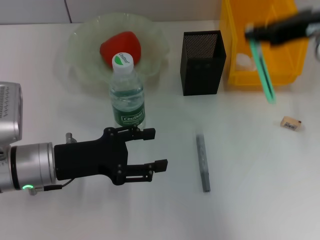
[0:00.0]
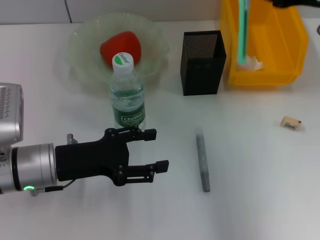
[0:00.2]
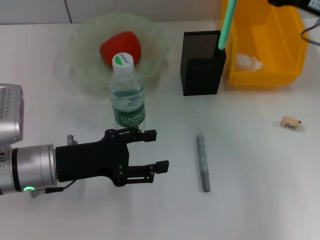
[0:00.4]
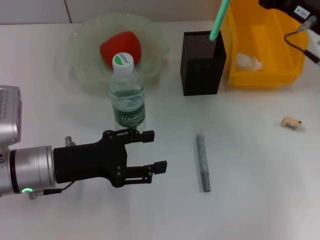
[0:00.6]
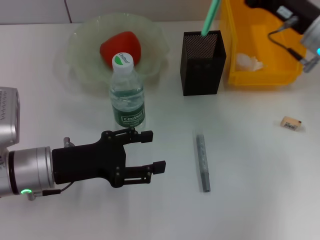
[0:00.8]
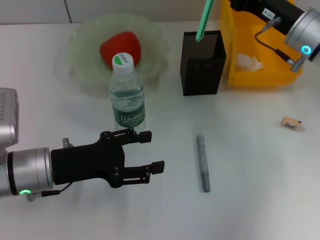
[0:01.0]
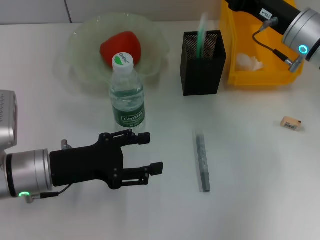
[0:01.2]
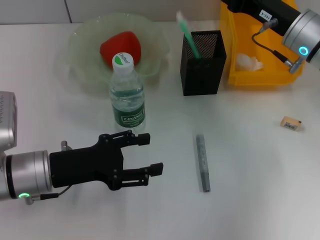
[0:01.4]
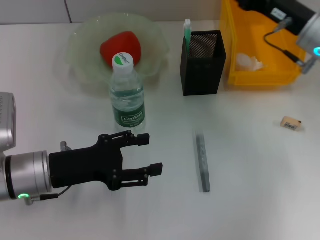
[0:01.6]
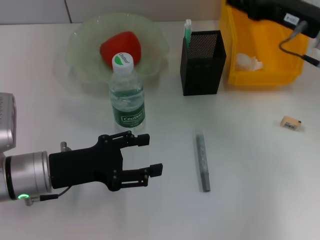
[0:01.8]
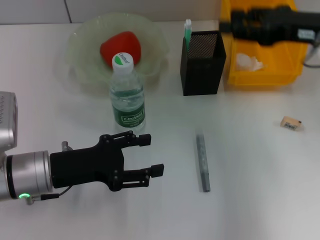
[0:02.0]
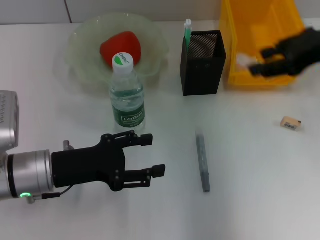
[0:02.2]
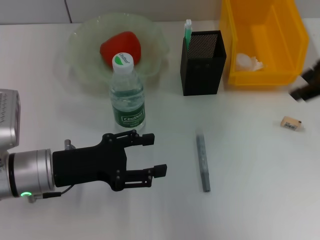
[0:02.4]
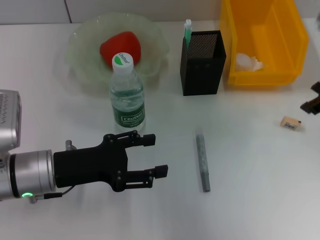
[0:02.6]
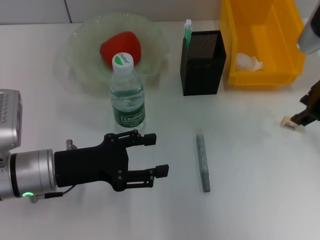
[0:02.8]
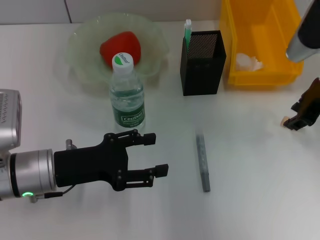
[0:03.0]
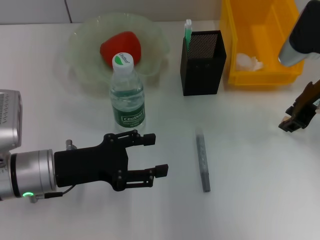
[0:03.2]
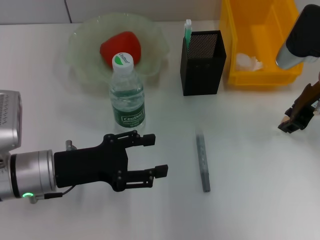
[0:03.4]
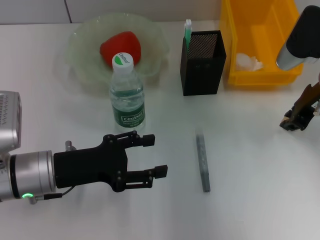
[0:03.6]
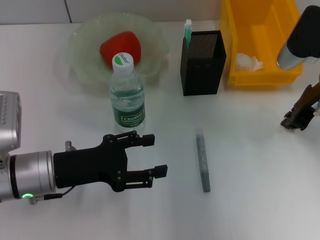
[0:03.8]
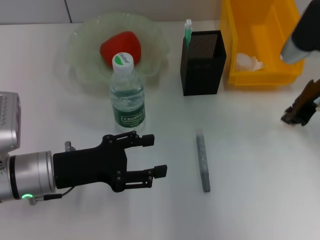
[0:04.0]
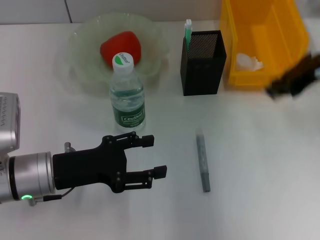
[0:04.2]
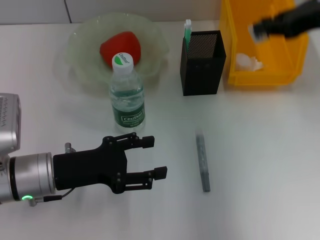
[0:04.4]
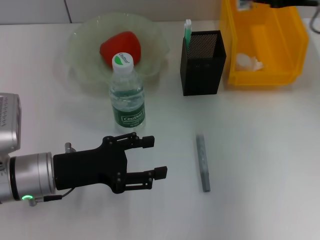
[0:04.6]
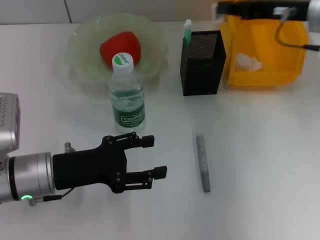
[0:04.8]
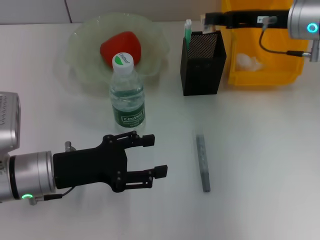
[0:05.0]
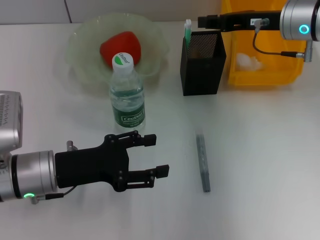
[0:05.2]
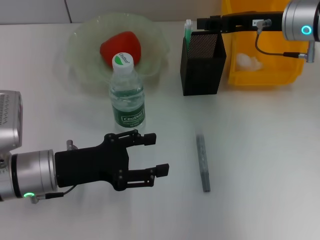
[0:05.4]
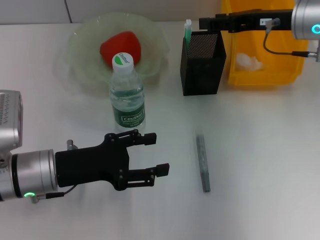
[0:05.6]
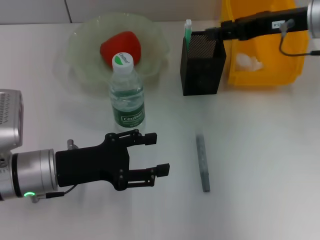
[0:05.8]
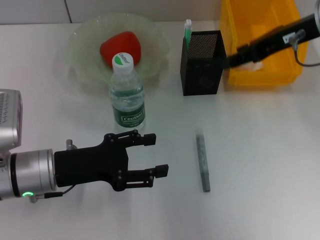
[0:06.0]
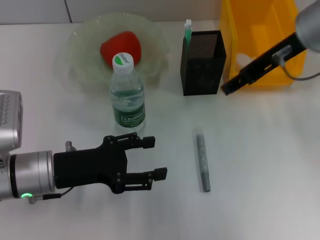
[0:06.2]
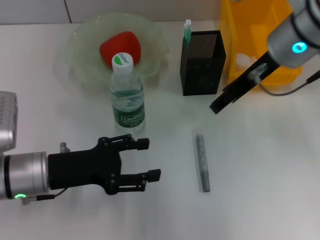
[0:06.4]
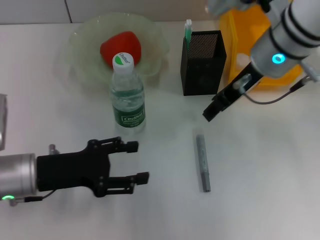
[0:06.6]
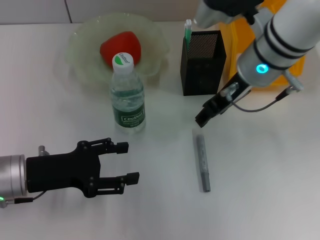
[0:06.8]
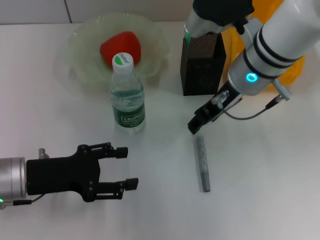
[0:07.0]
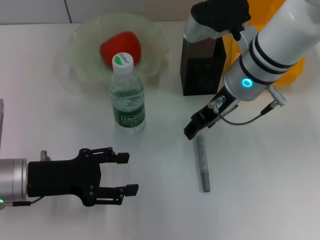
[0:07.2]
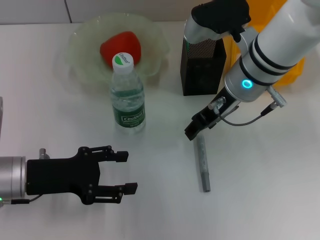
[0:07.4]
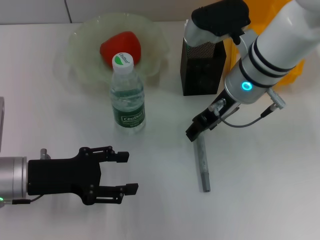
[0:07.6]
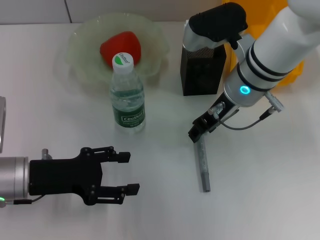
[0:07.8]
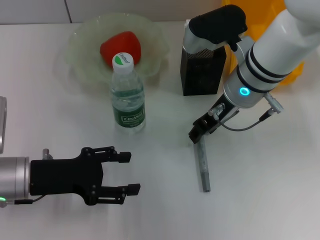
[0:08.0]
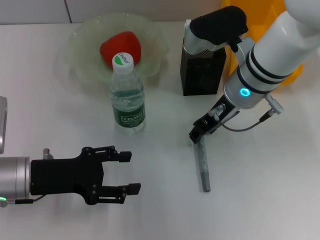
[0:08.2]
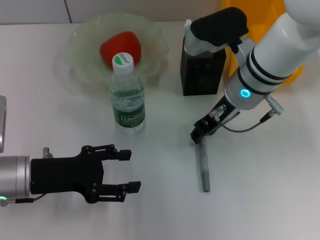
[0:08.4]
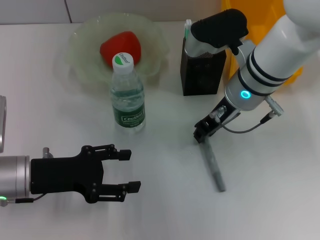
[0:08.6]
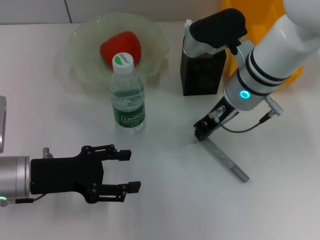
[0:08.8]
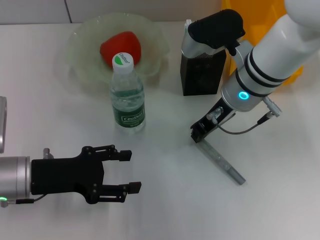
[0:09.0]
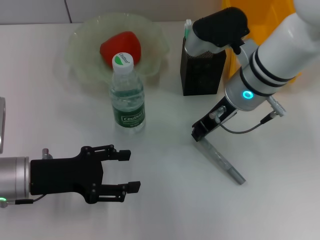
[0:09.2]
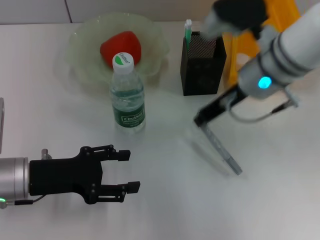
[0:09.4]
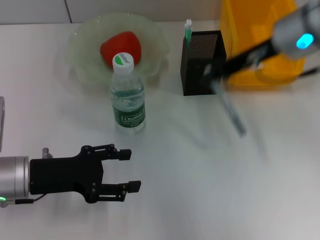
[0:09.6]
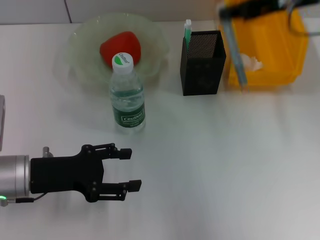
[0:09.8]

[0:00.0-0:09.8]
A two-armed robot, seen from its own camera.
Step, 0:00.0 to 0:01.4: Place the blue utility knife into the pen holder with the right hand.
Step, 0:01.6 to 0:03.6: Grab the eraser with the right hand.
Step, 0:03.8 to 0:05.8: Put the eraser into the pen holder with the right hand.
Step, 0:06.0 to 0:08.6: Grab the gray glue with the right hand.
0:00.0 to 0:01.4: The right gripper moves downward and forward, some 15 cm.
0:01.4 to 0:02.8: The right gripper heads upward, covering some 5 cm.
0:02.8 to 0:04.2: The right gripper closes its fingers.
0:04.2 to 0:05.6: The right gripper goes about 5 cm forward, and opens.
0:05.6 to 0:07.0: The right gripper travels to the left by some 10 cm.
0:07.0 to 0:08.4: There are only small adjustments of the grippers.
0:08.4 to 0:09.8: The right gripper moves upward and to the right, about 15 cm, and closes its fingers.

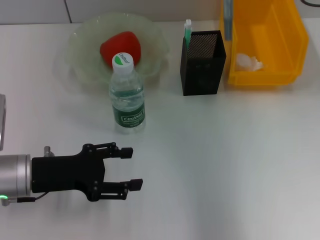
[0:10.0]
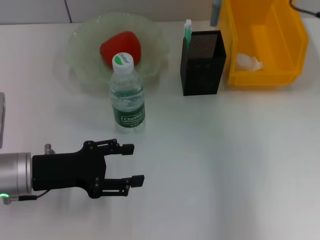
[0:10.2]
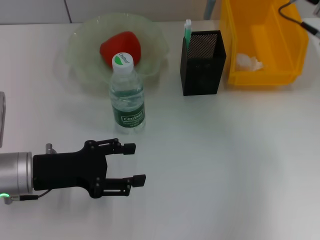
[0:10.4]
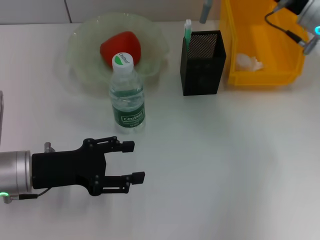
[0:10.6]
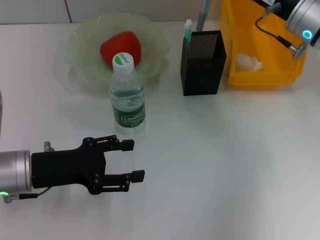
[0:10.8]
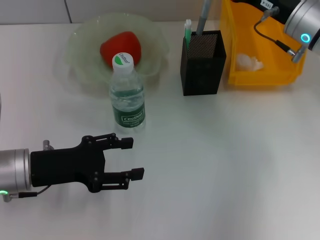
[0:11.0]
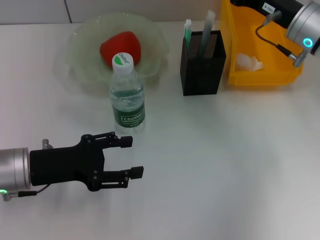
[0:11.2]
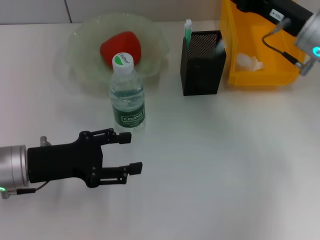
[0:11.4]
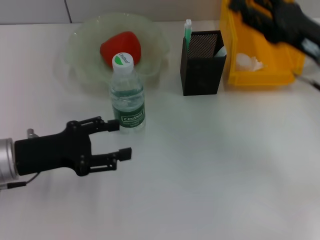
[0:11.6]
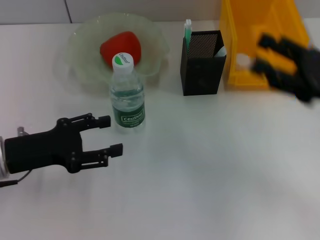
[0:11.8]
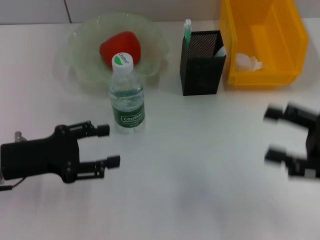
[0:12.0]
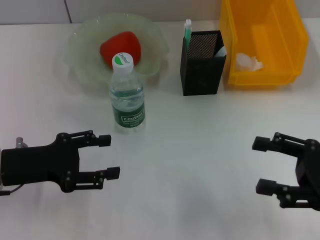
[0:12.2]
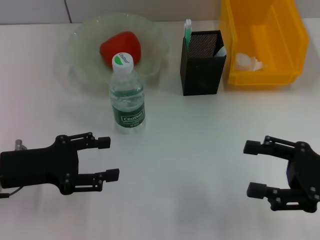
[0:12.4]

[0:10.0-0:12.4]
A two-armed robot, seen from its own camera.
Step, 0:10.0 to 0:11.4: Place the gray glue into the pen holder with the right hand.
0:10.0 to 0:11.2: The right gripper moves downward, approximately 15 cm.
0:11.2 to 0:12.4: The right gripper is displaced backward and to the right by some 20 cm, and opens its fingers.

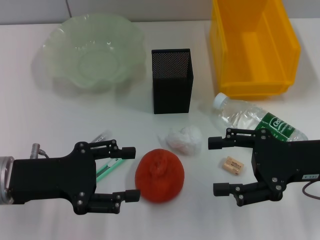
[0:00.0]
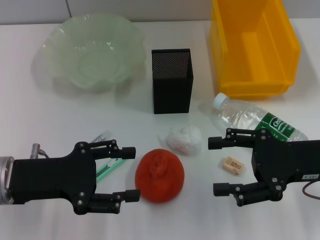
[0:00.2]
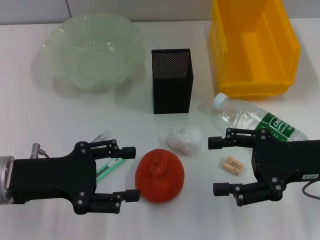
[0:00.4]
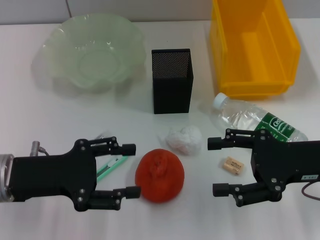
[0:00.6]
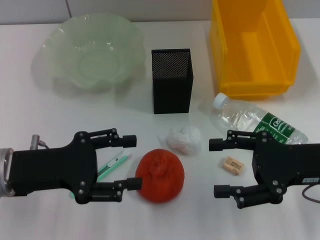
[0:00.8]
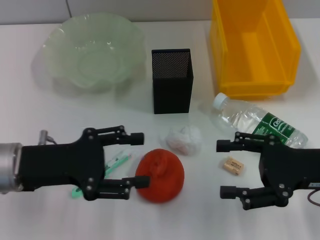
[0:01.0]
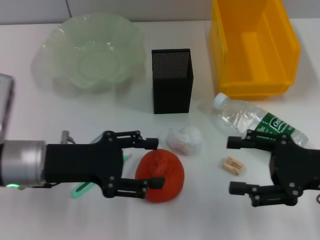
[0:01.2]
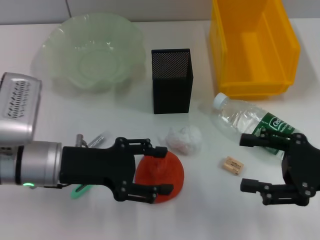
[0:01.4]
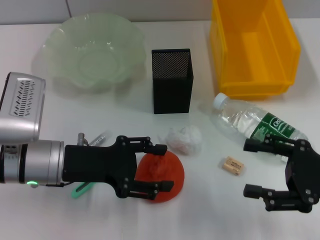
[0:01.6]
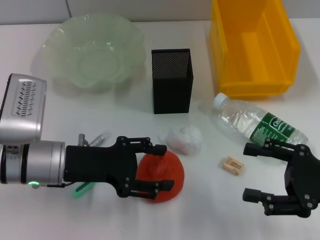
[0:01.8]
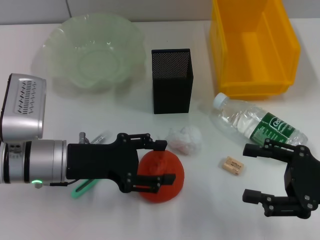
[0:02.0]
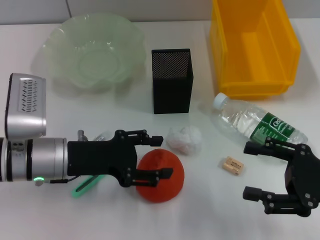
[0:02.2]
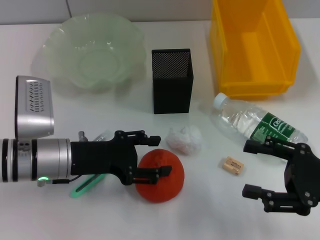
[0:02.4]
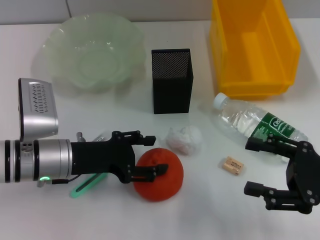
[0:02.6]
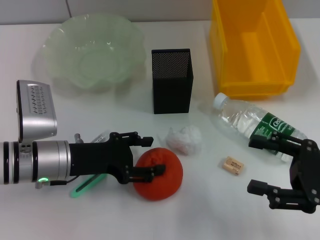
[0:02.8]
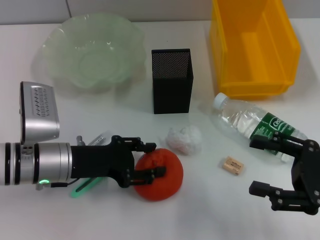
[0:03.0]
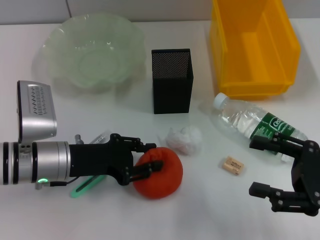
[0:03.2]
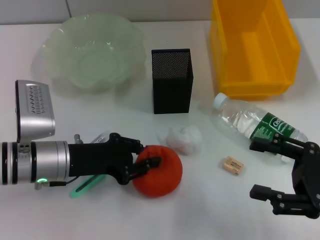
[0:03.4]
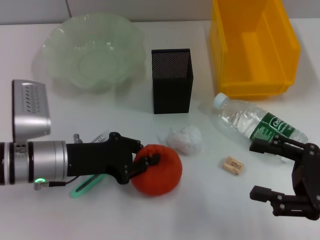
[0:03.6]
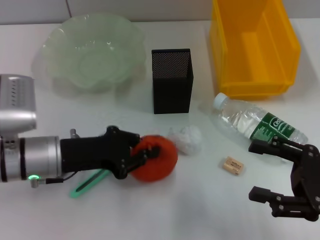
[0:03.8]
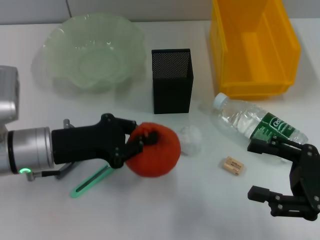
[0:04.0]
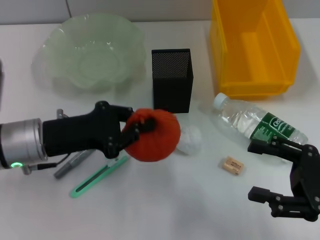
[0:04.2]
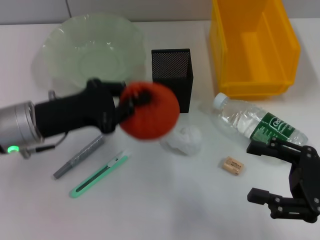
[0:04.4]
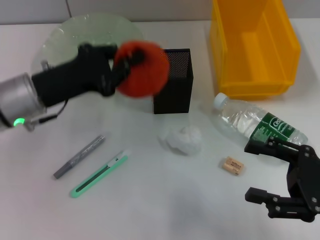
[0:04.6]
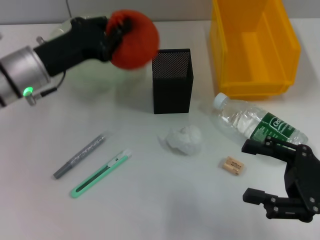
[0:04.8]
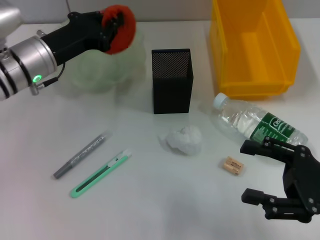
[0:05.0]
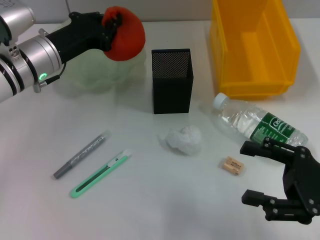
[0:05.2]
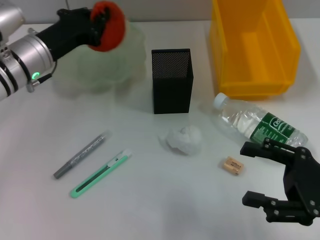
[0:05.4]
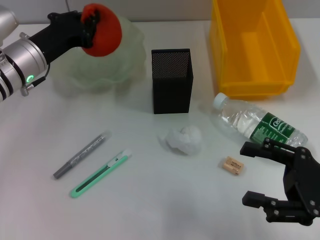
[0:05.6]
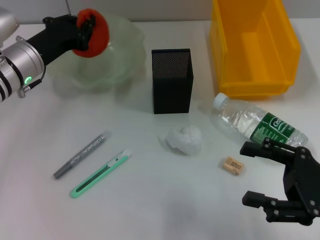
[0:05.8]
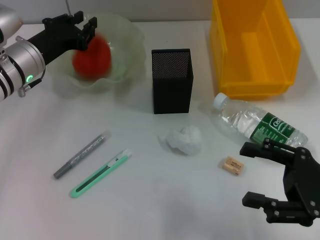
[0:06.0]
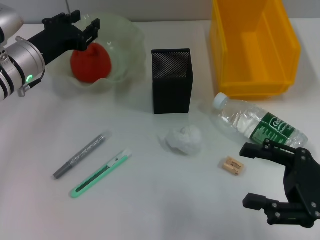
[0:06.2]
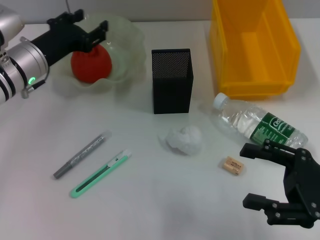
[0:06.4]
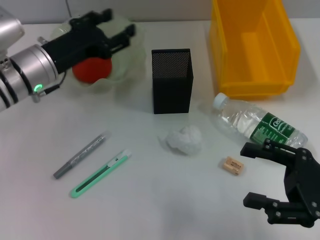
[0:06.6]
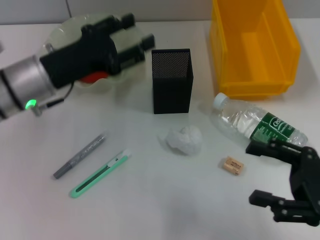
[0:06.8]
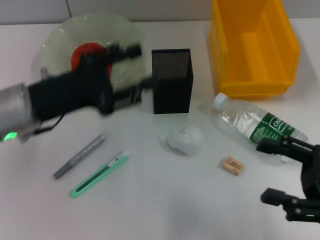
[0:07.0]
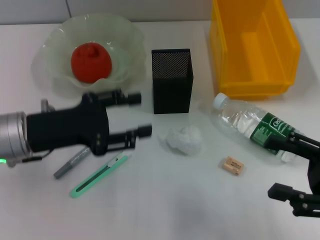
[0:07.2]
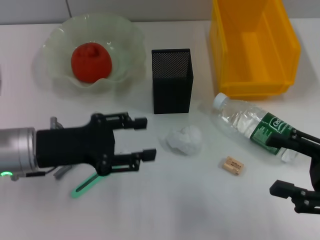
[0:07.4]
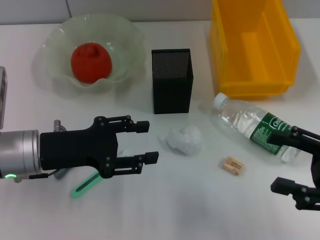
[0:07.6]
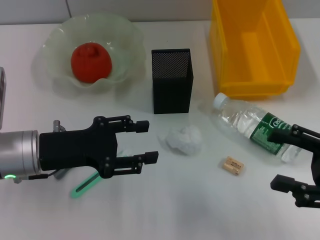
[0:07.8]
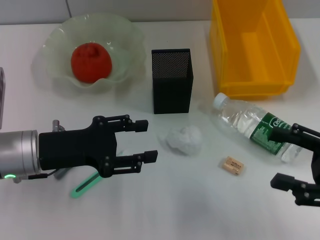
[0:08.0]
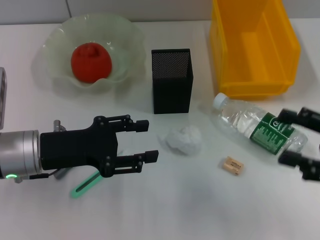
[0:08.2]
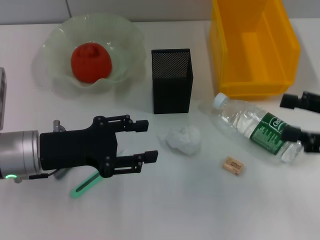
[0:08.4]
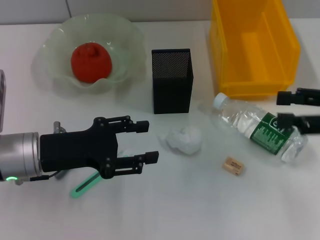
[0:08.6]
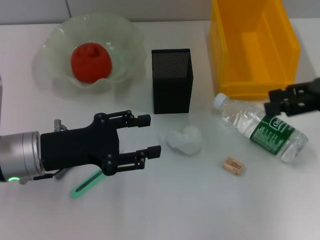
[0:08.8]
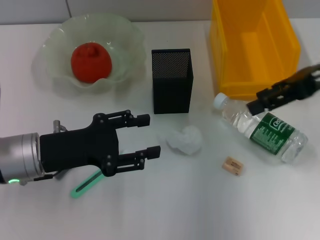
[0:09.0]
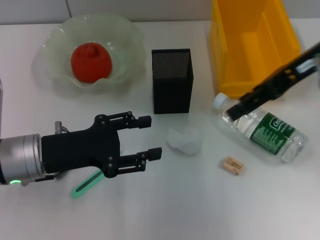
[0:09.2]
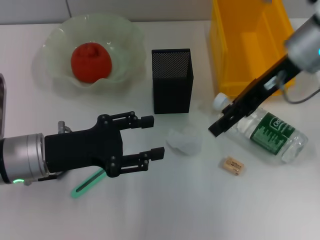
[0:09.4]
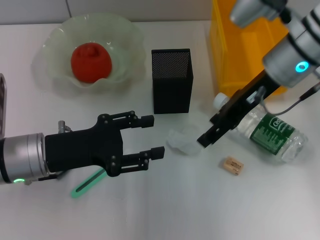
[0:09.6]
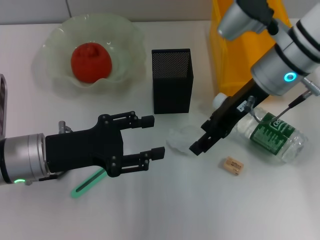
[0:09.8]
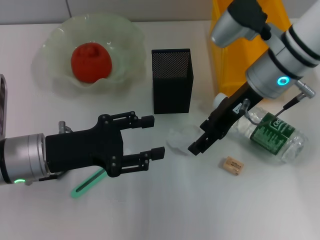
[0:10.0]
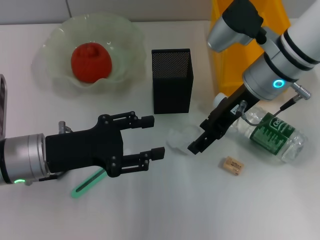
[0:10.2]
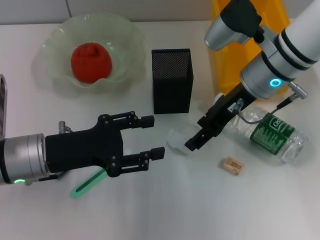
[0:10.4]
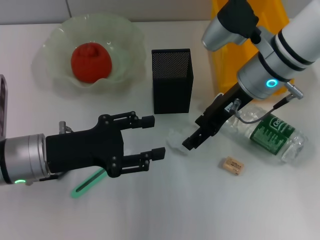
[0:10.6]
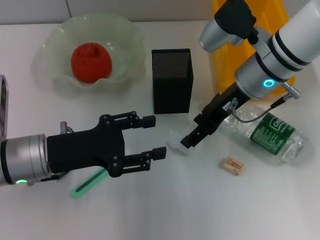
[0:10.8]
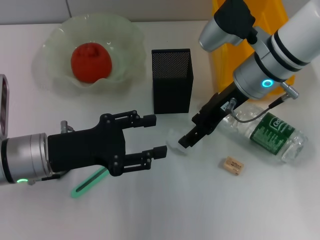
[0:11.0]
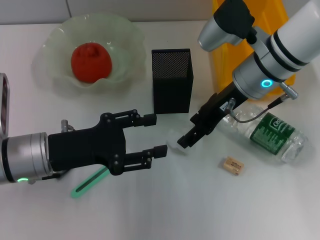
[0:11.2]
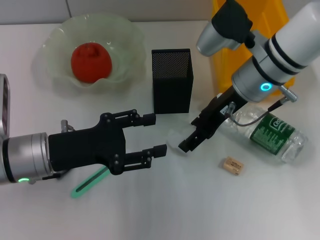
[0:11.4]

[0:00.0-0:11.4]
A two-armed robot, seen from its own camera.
Step, 0:00.0 to 0:03.4: Grab the orange with the left hand.
Step, 0:03.6 to 0:06.0: Place the orange into the fruit bowl with the left hand.
0:00.0 to 0:01.4: The left gripper moves approximately 5 cm.
0:01.4 to 0:02.8: The grippers stay close to where they were, moving slightly.
0:02.8 to 0:04.2: The left gripper closes its fingers.
0:04.2 to 0:05.6: The left gripper heads forward, covering some 10 cm.
0:05.6 to 0:07.2: The left gripper heads backward, covering about 10 cm, and opens its fingers.
0:07.2 to 0:08.6: The right gripper moves forward and upward, roughly 10 cm.
0:08.6 to 0:10.0: The right gripper goes about 20 cm to the left and forward.
0:10.0 to 0:11.4: The grippers make only small movements.
